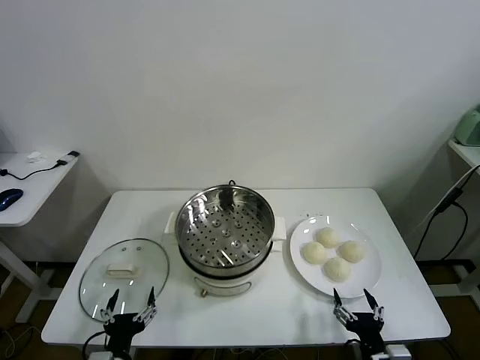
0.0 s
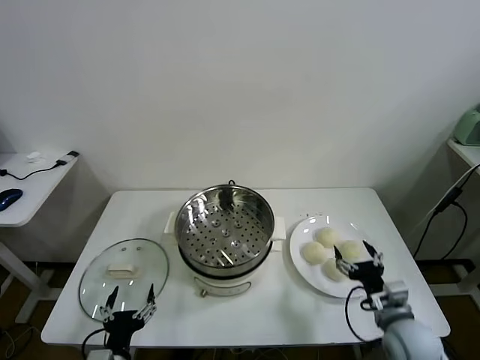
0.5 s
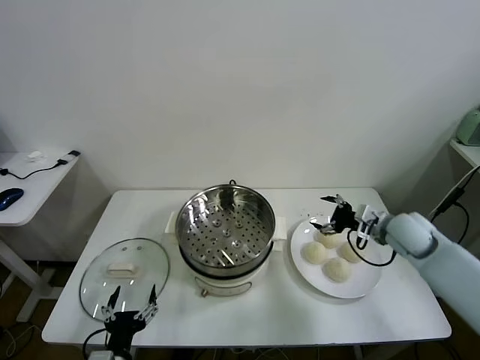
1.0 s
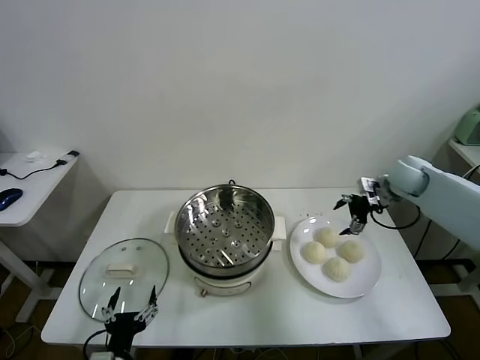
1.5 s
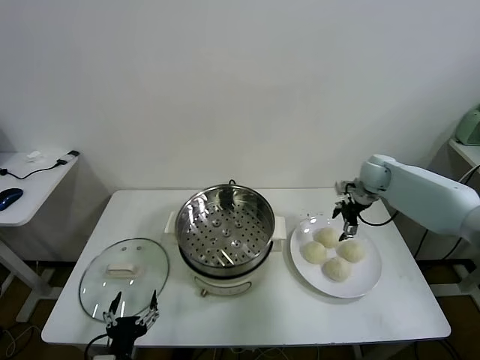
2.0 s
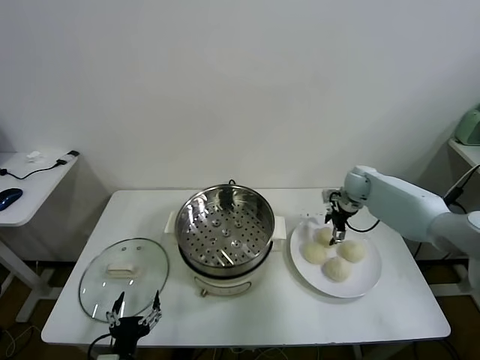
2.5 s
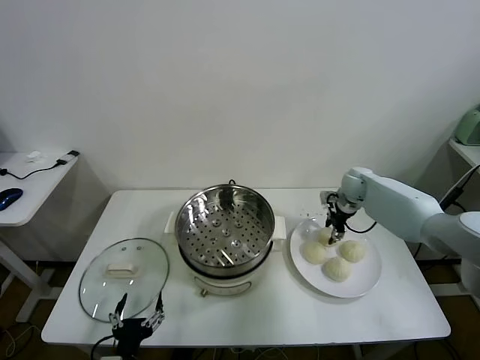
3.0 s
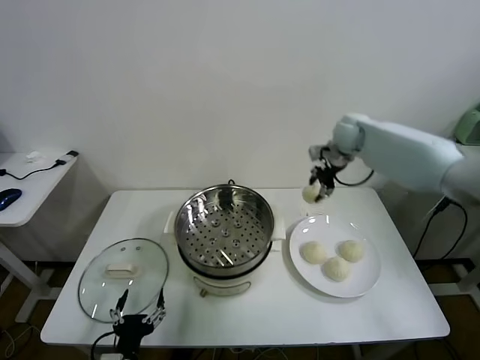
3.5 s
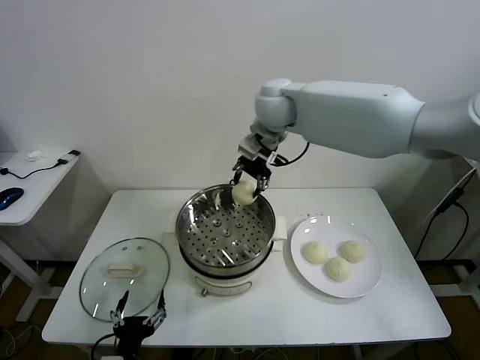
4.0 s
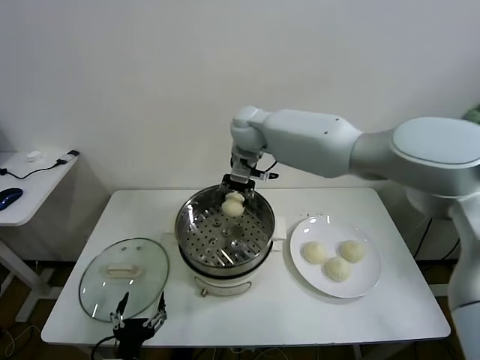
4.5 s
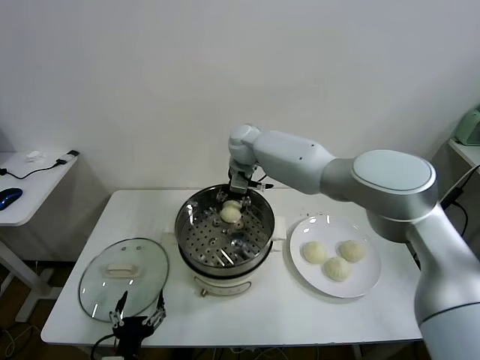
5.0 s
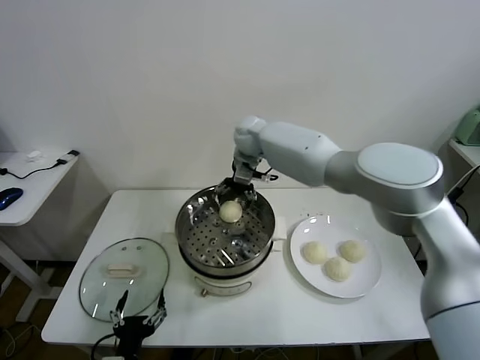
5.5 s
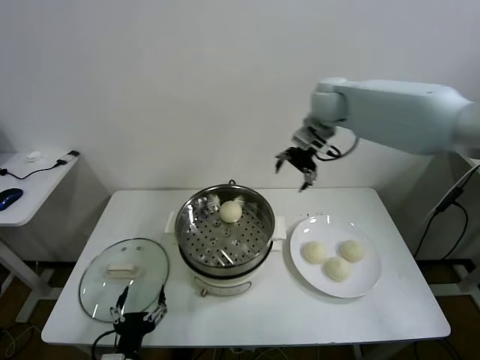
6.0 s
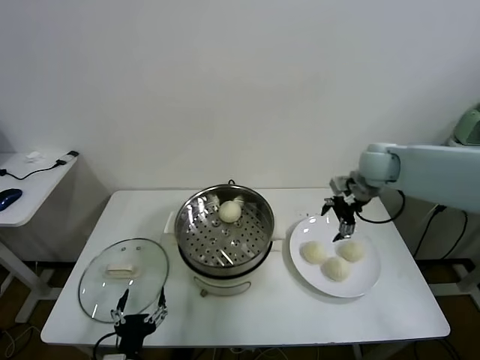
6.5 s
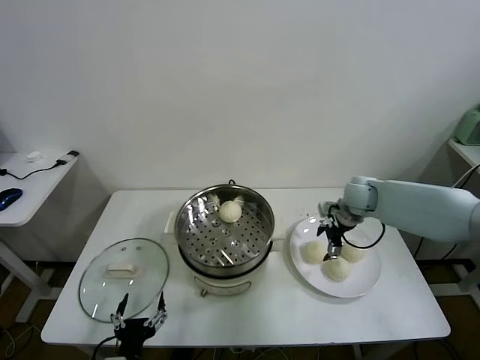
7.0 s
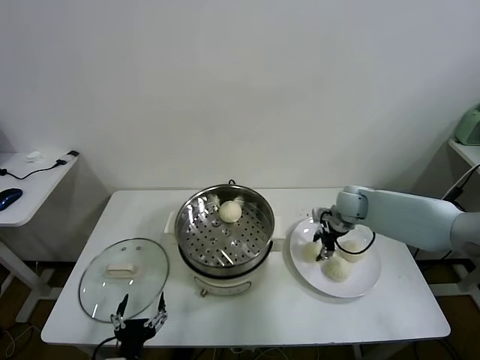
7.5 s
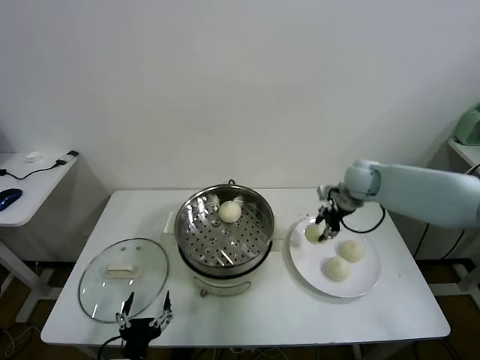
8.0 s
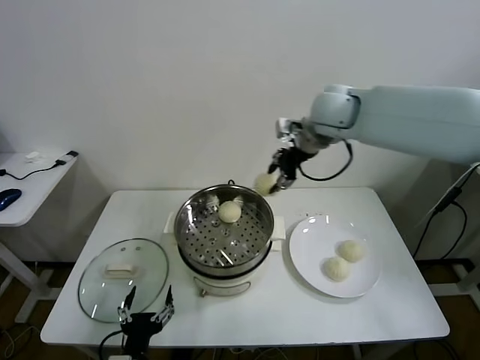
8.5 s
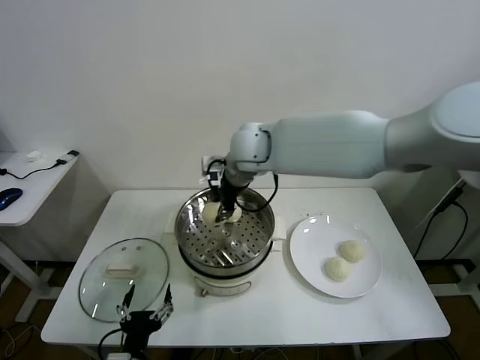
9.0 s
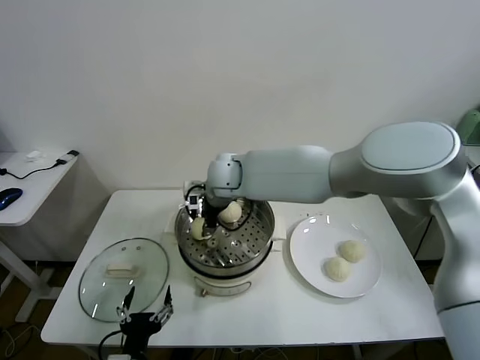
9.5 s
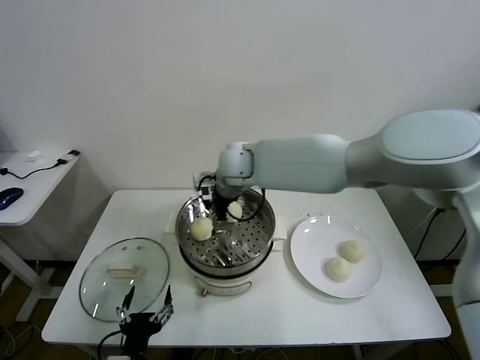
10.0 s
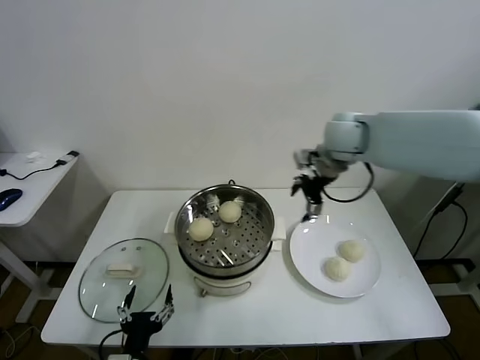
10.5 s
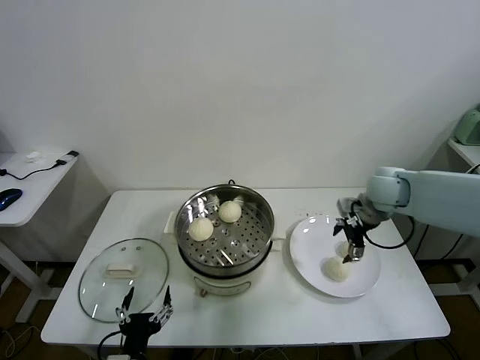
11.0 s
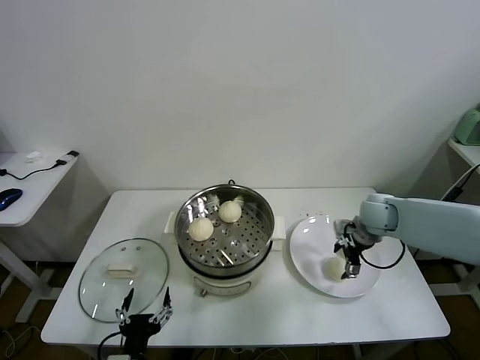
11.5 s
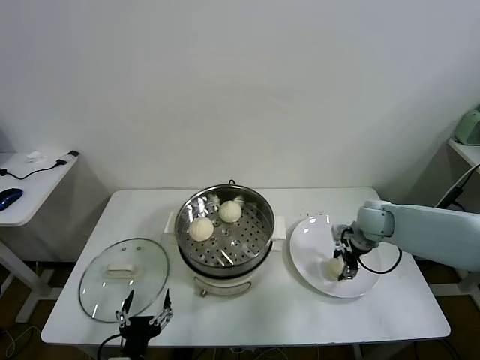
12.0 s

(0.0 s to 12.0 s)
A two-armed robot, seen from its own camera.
Task of the whole recording: take steamed baozi put them in steamer.
Step, 0.0 s - 2.5 s: Grasp the baozi in the plate with right gripper.
Step, 3.0 s - 5.0 s: Place the baozi on the steamer with right gripper.
Step, 5.5 s - 7.5 s: Grasp the baozi in the plate with right gripper.
Step, 8.0 s - 9.5 s: Place the baozi on the steamer with right gripper.
Step, 10.0 s - 11.5 s: Grasp the baozi in the plate with right gripper.
2.0 s - 4.0 s: The right gripper goes approximately 35 cm to the left and upward, and closes.
4.0 s - 6.0 s: The right gripper is displaced to the right by approximately 20 cm, and opens its fingers.
6.0 s - 8.0 s: The right gripper goes approximately 15 cm downward and to the right, and closes its fingers.
8.0 s - 10.0 s: The right gripper travels to the left by roughly 30 cm, and opens up.
10.0 s - 12.0 s: The right gripper heads to the right and downward, covering some 35 cm, and closes.

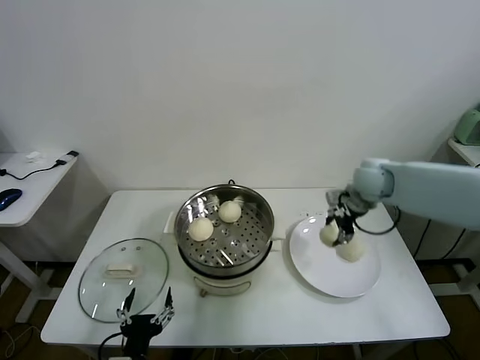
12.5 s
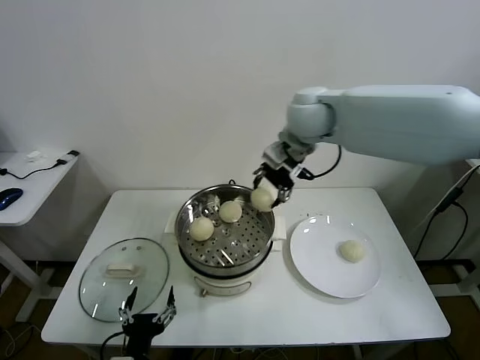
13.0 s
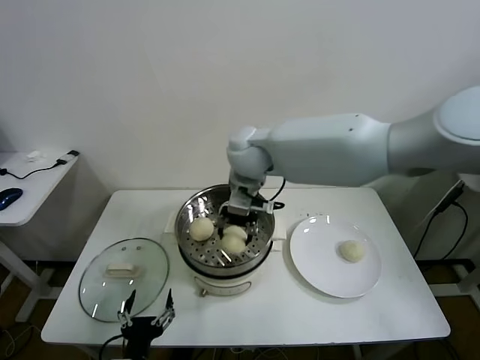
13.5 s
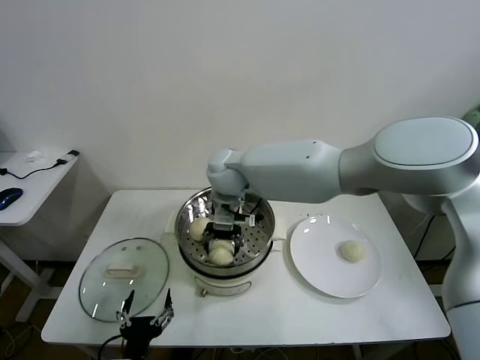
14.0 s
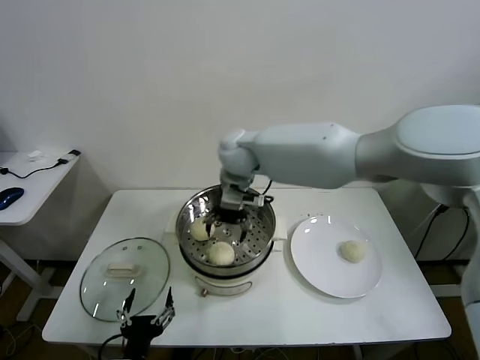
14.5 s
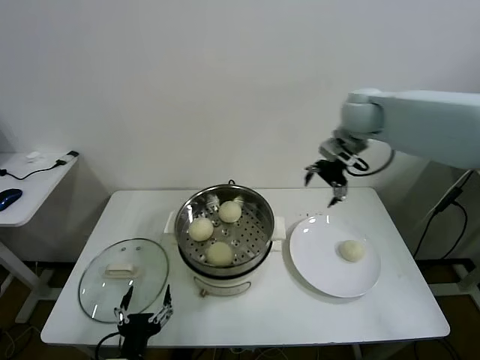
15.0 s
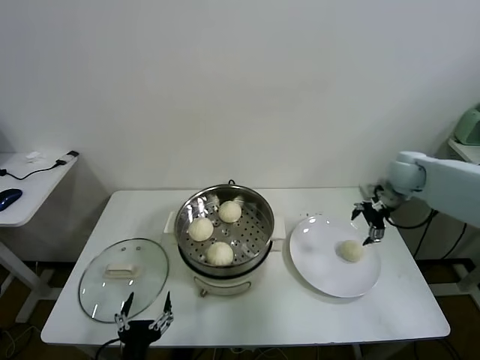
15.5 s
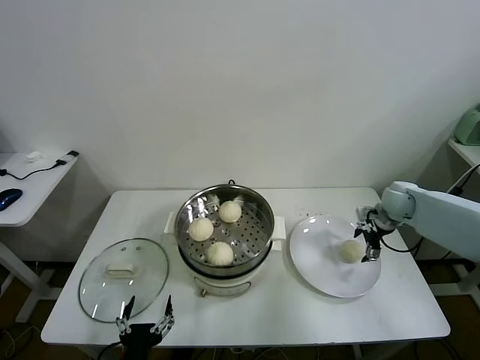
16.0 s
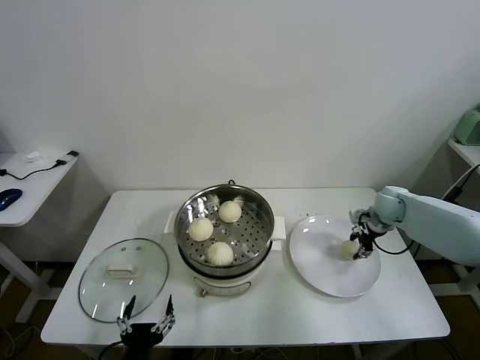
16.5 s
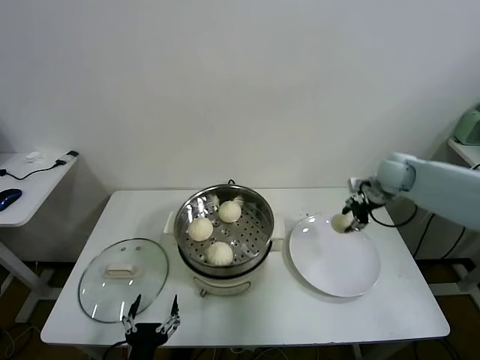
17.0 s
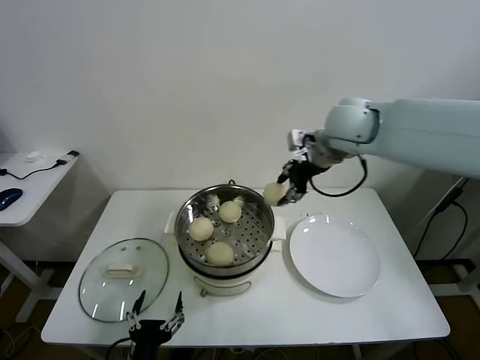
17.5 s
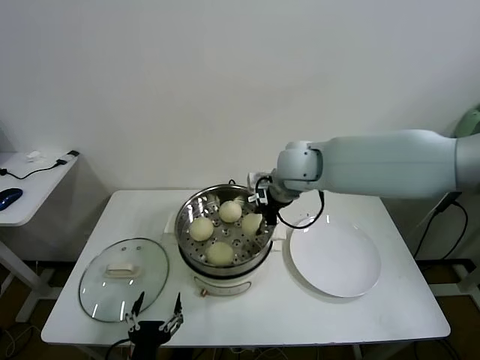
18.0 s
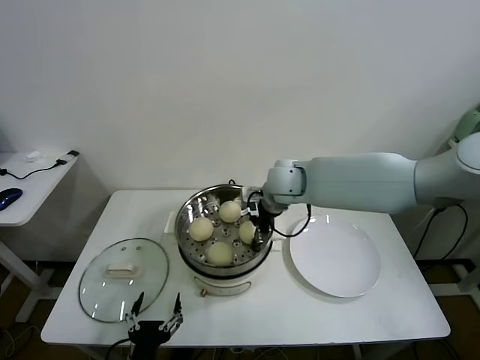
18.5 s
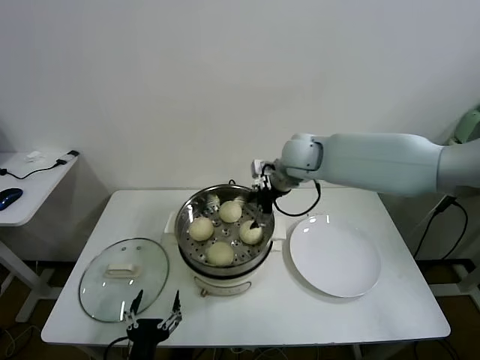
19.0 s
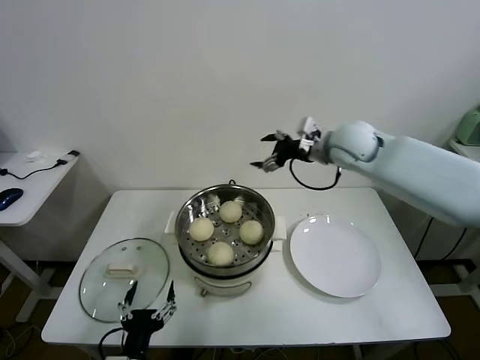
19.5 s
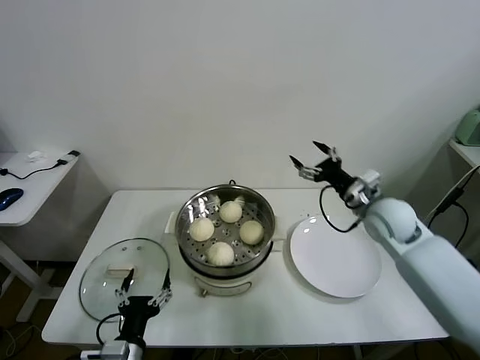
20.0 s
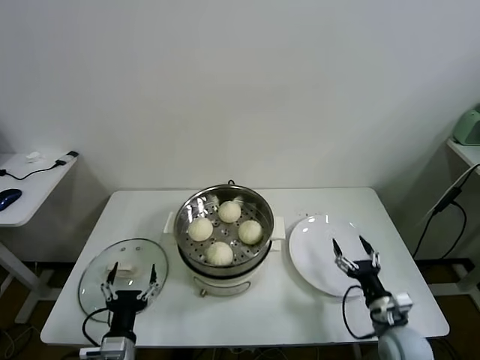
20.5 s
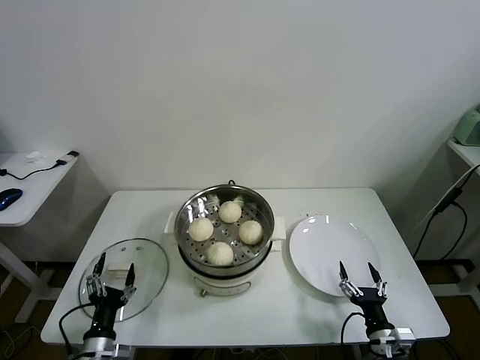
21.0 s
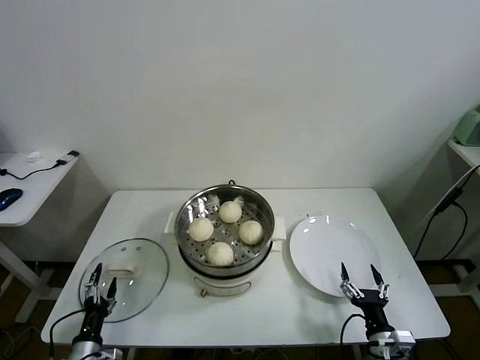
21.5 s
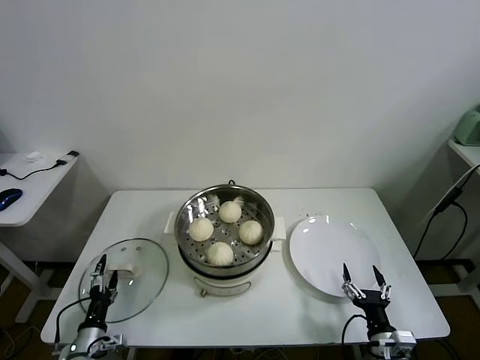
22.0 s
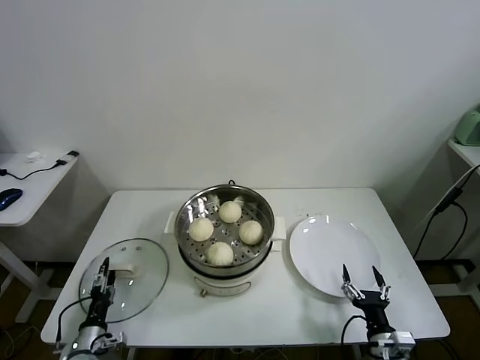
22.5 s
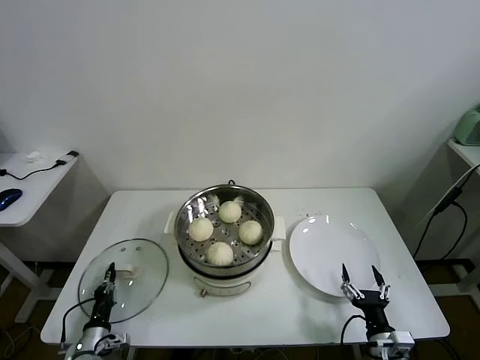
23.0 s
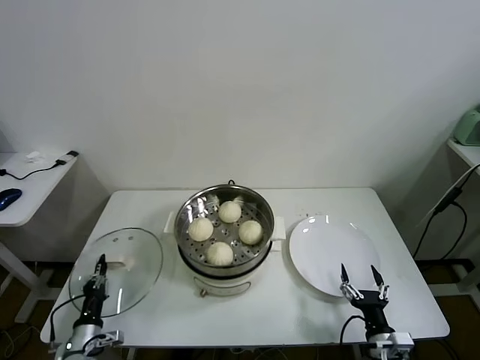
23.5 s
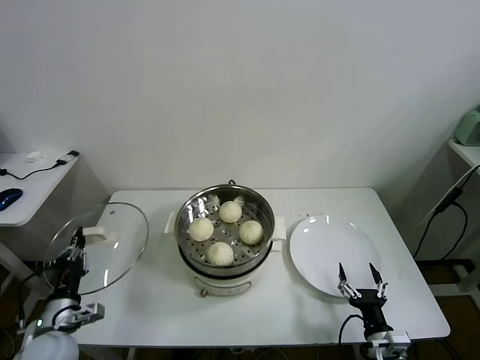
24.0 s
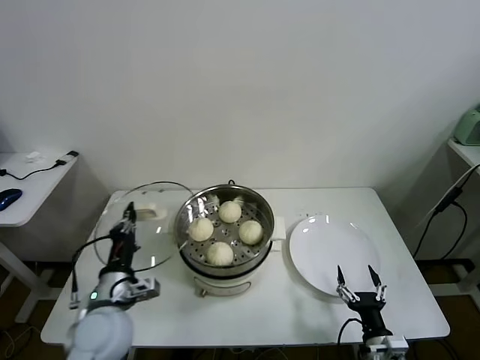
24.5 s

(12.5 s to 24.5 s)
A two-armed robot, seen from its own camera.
Task of the whole recording: take steamed baozi put them in steamer.
Step, 12.5 s - 14.0 s: Place the baozi on the steamer with right gripper.
Step, 14.5 s - 16.0 s: Grasp the baozi in the plate with right gripper.
Step, 16.5 s - 18.5 s: Place the baozi on the steamer with right gripper.
Step, 19.0 s - 23.0 s: Grasp the pot lid with left gripper.
12.5 s - 14.5 s: The right gripper shifts approximately 30 cm to the left, and opens up.
14.5 s - 16.5 s: The right gripper moves to the right and downward, roughly 40 cm, and closes its fingers.
16.5 s - 18.5 s: The right gripper shifts roughly 30 cm to the left and upward, and opens its fingers.
18.5 s - 20.5 s: The left gripper travels forward by roughly 5 cm. Meanwhile the right gripper is displaced downward, backward and to the right by about 40 cm, and opens.
20.5 s - 22.5 s: The right gripper shifts roughly 10 cm backward, while the left gripper is displaced to the left, downward and forward by about 20 cm.
22.5 s - 24.5 s: The left gripper heads upward and to the right, covering approximately 25 cm, and closes up.

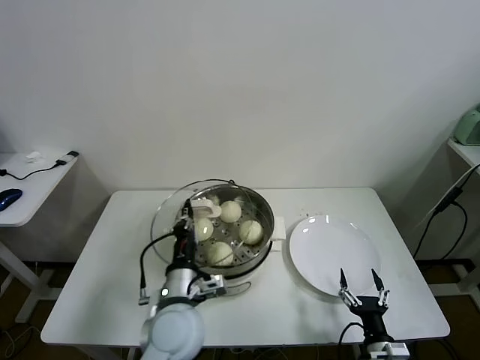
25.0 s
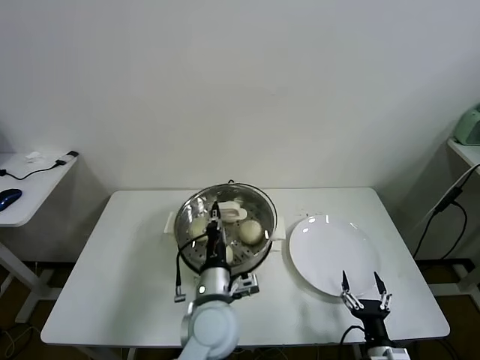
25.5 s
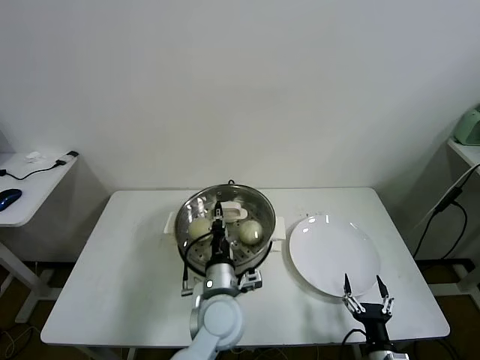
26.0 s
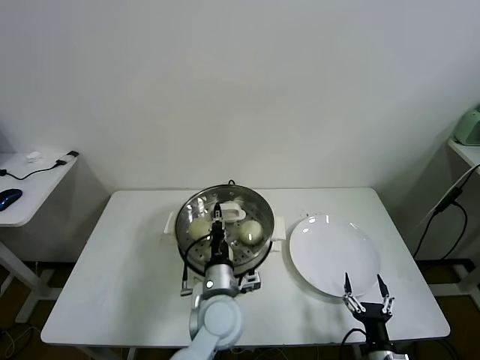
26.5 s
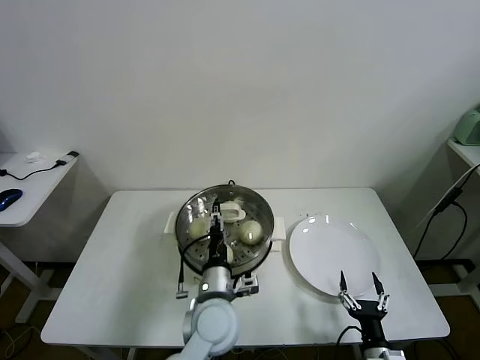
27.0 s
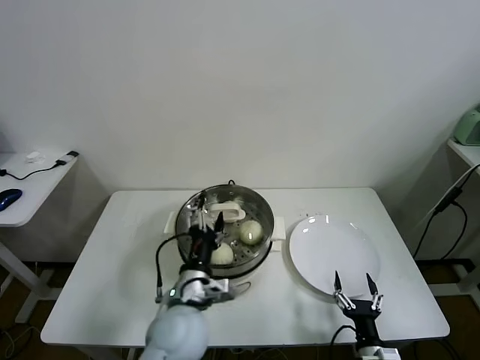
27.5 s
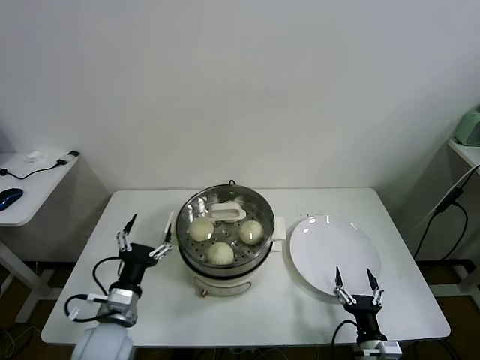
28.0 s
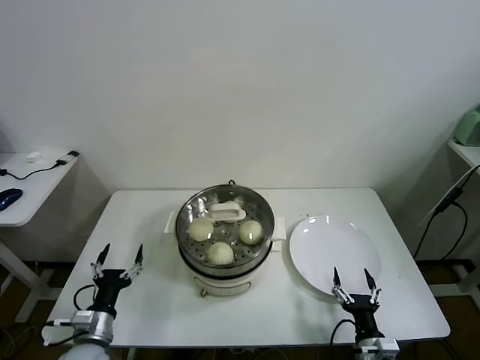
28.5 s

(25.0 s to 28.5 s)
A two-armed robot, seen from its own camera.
Task of the whole recording: take steamed baozi put them in steamer.
Step, 25.0 s - 27.0 s: Place the pot lid on the steamer with left gripper.
25.0 s - 27.0 s: The left gripper heads to the right, covering some 10 cm, and opens.
27.0 s - 28.5 s: The left gripper travels to the left by approximately 25 cm, and opens its fingers.
